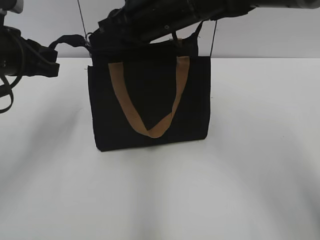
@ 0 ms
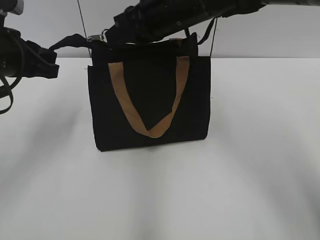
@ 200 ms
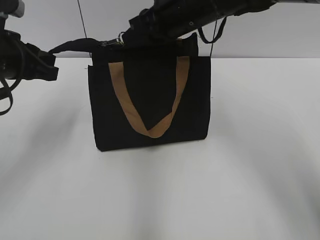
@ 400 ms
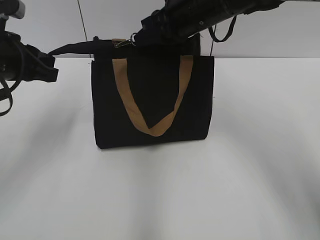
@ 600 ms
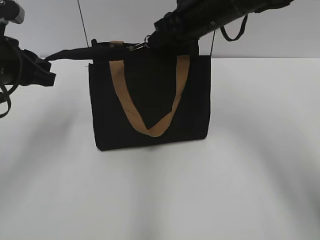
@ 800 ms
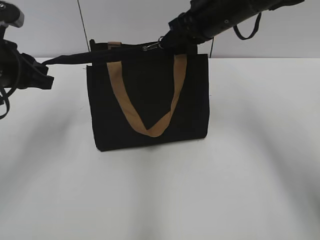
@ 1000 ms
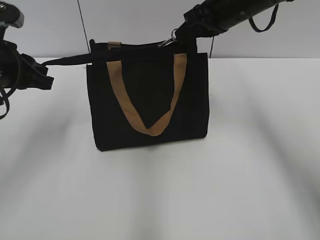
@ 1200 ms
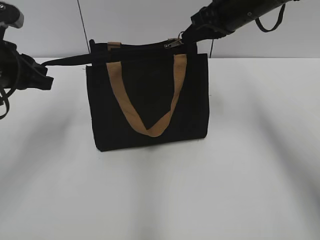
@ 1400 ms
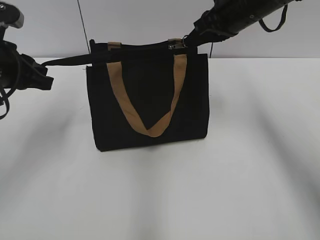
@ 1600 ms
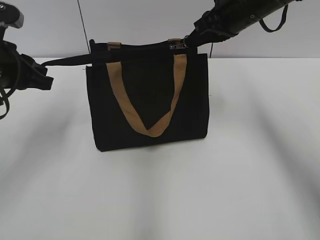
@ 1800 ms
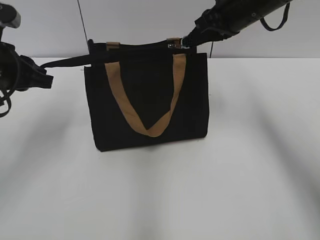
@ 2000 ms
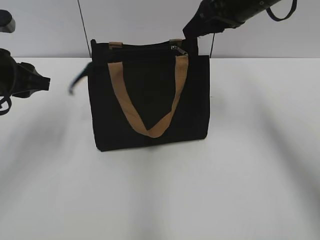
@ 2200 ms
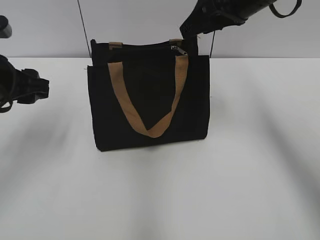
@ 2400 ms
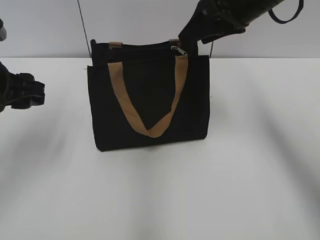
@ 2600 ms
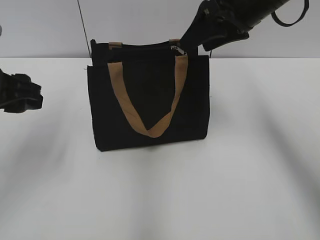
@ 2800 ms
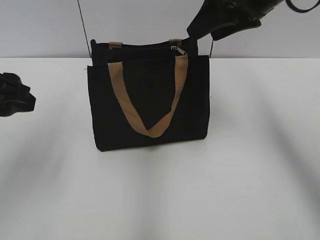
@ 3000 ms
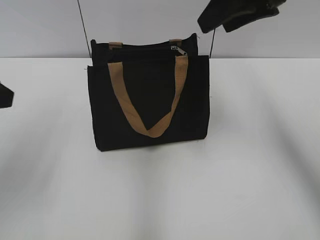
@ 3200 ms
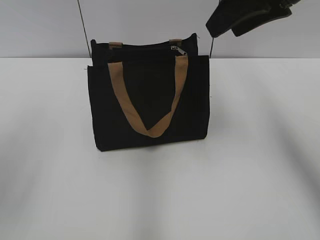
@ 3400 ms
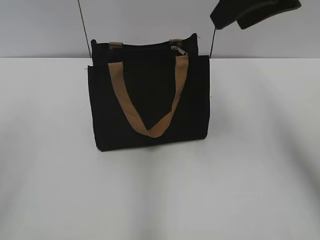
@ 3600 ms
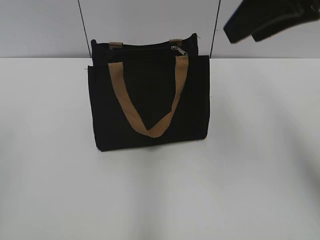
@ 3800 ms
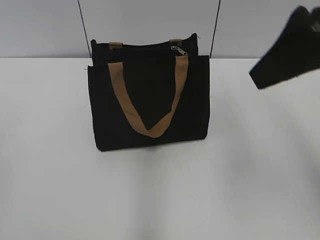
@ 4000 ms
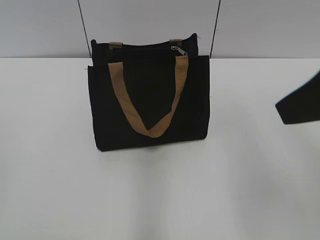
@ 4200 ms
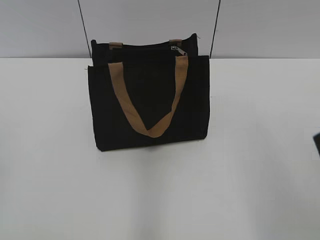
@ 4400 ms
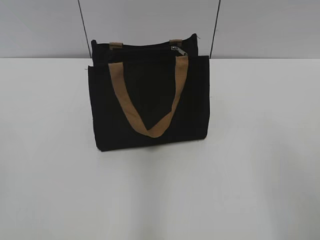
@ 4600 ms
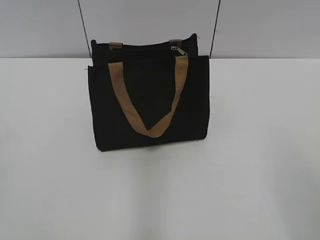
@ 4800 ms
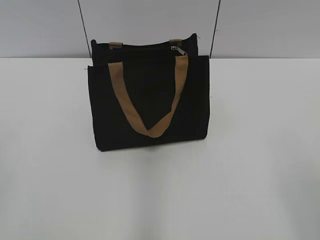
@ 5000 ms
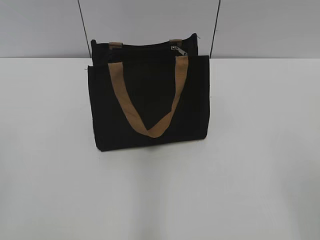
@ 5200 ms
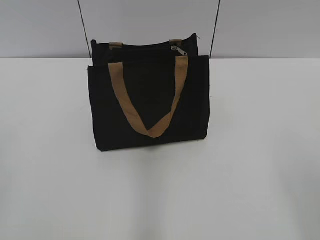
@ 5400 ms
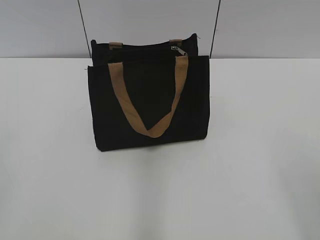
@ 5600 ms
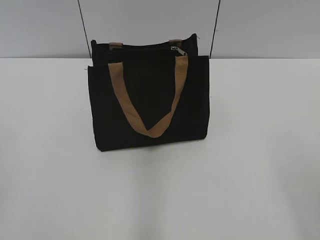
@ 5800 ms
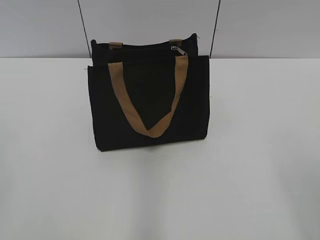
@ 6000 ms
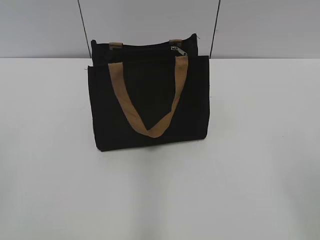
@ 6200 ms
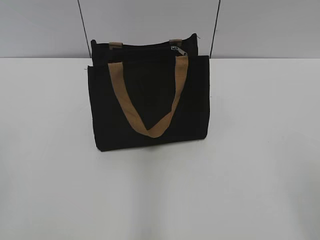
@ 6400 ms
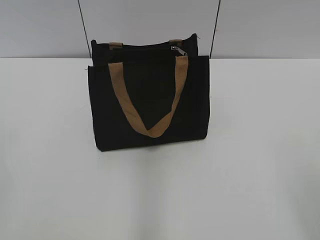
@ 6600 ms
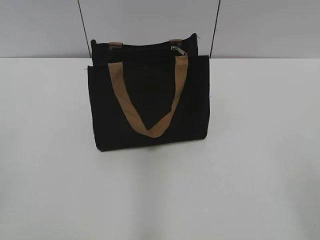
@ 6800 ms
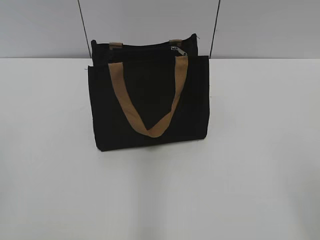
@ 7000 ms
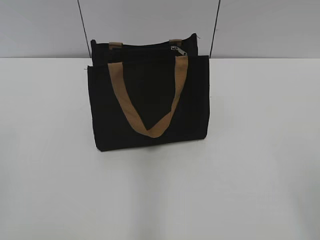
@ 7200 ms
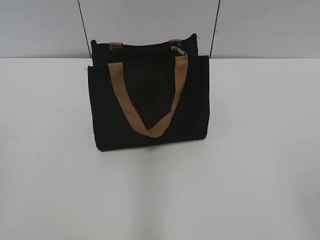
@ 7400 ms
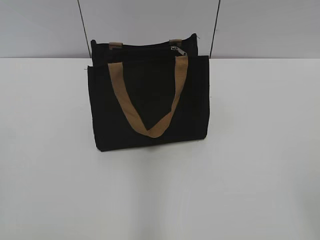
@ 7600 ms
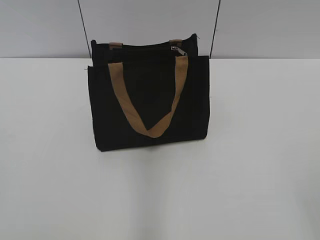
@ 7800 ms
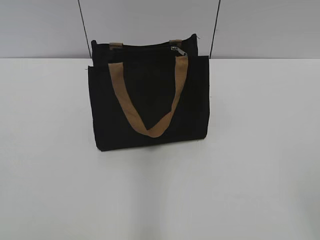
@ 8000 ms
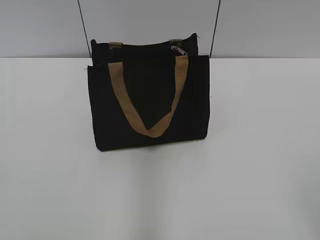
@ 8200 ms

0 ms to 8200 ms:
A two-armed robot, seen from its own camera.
Step, 0 ms to 2000 ms: Zip up the bag with your right hand.
0 ms to 1600 ms: The right gripper goes roughly 15 cm to the right.
1600 ms to 3200 ms: The right gripper travels upward and backward by approximately 10 cm, and opens its fingers. The left gripper travels backward and upward by about 10 cm, and opens its fingers.
3200 ms to 5000 ms: The right gripper goes about 30 cm backward. The left gripper is displaced backward and to the left by roughly 20 cm.

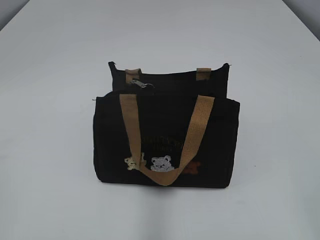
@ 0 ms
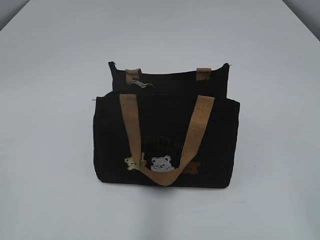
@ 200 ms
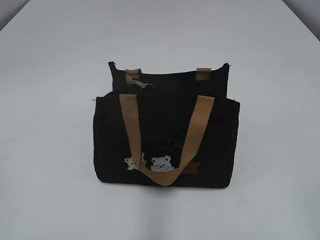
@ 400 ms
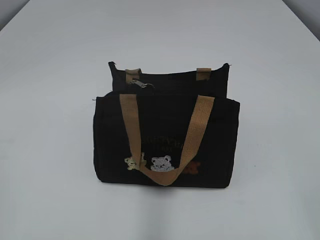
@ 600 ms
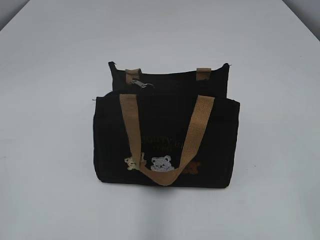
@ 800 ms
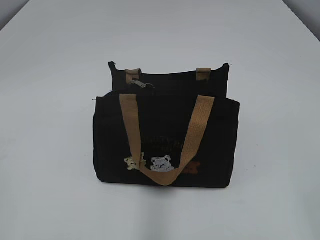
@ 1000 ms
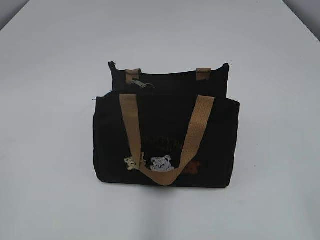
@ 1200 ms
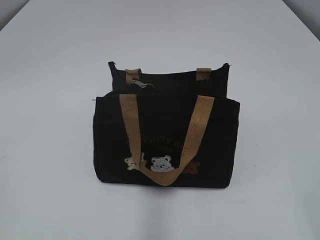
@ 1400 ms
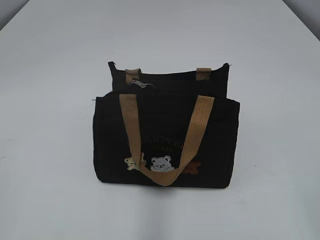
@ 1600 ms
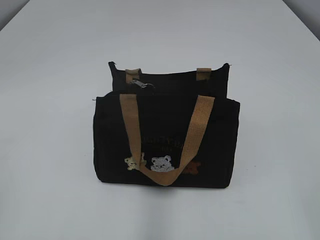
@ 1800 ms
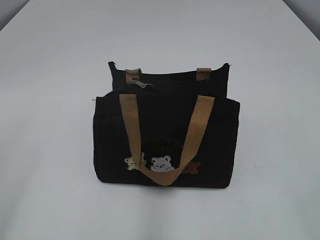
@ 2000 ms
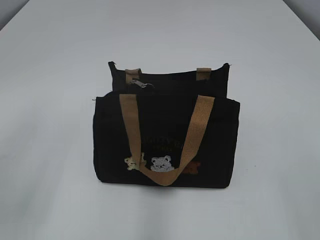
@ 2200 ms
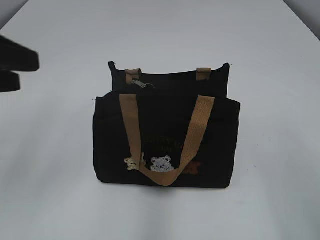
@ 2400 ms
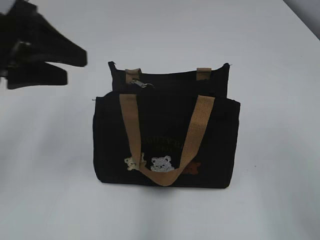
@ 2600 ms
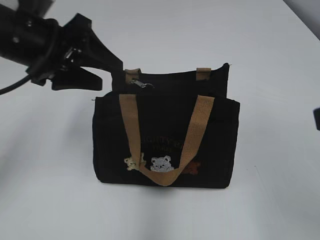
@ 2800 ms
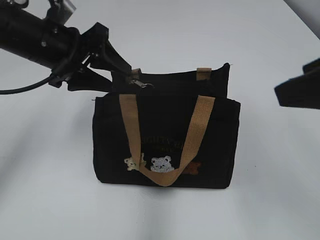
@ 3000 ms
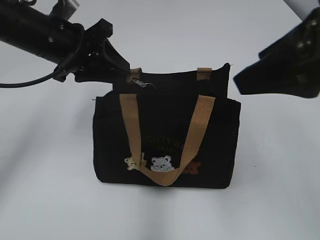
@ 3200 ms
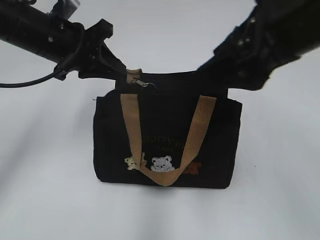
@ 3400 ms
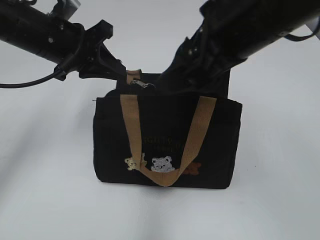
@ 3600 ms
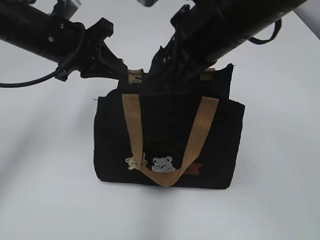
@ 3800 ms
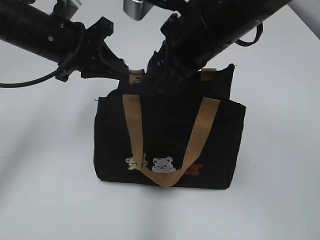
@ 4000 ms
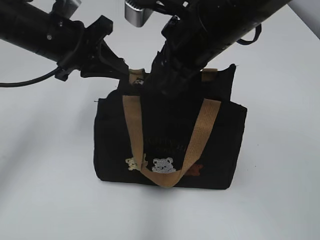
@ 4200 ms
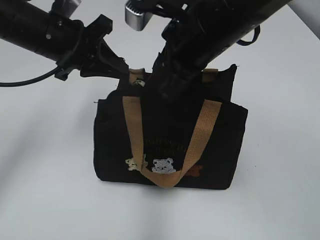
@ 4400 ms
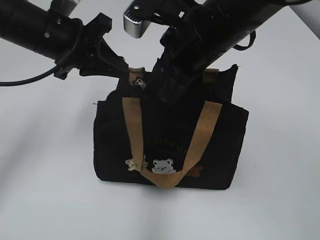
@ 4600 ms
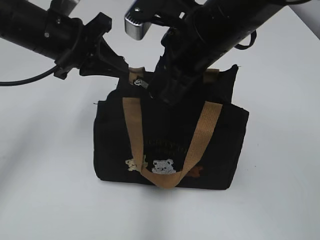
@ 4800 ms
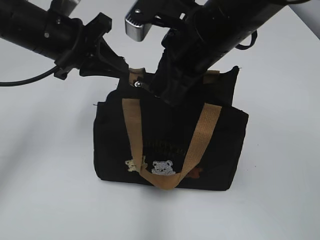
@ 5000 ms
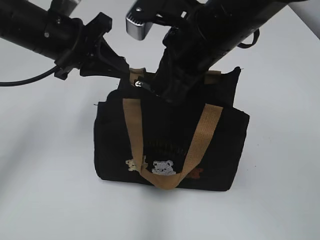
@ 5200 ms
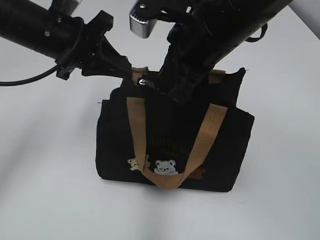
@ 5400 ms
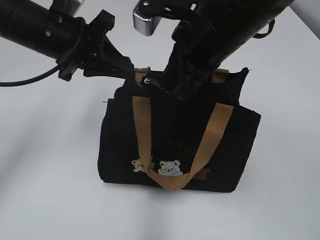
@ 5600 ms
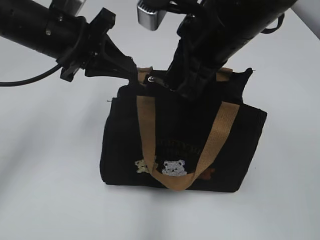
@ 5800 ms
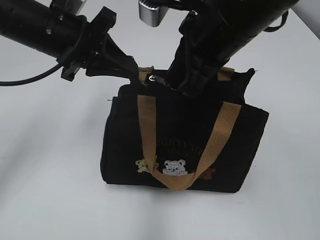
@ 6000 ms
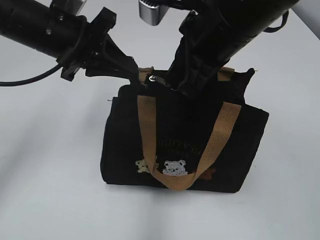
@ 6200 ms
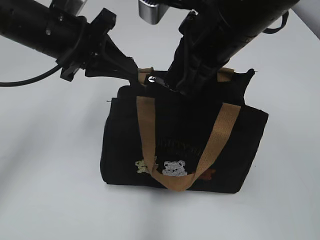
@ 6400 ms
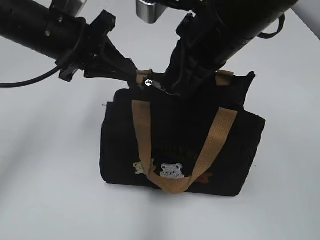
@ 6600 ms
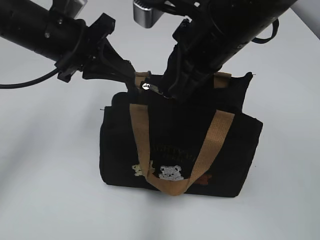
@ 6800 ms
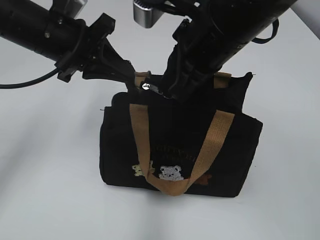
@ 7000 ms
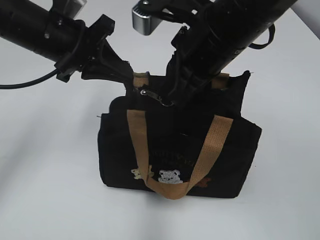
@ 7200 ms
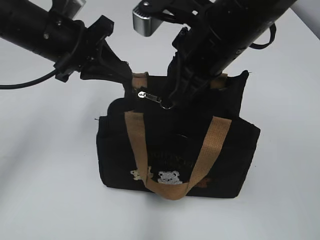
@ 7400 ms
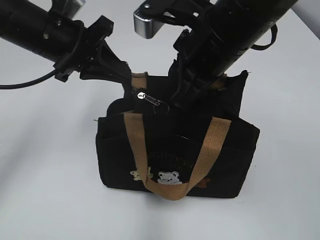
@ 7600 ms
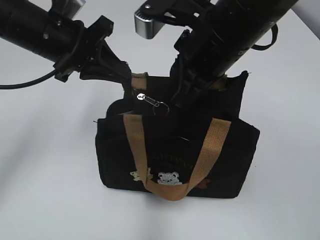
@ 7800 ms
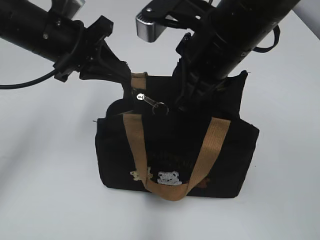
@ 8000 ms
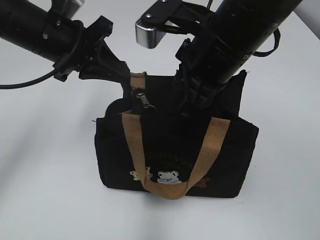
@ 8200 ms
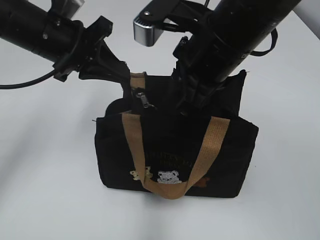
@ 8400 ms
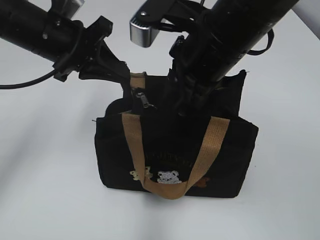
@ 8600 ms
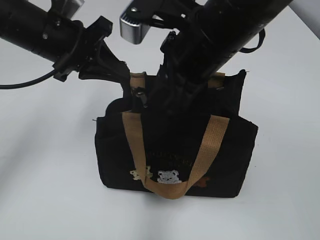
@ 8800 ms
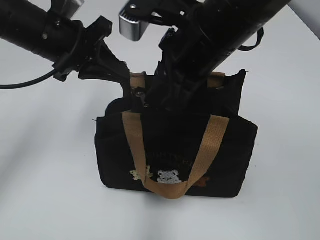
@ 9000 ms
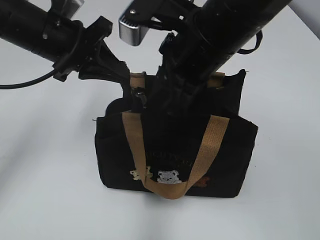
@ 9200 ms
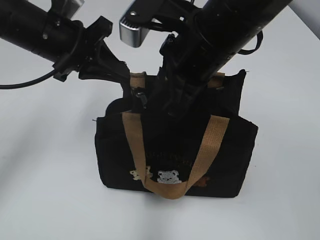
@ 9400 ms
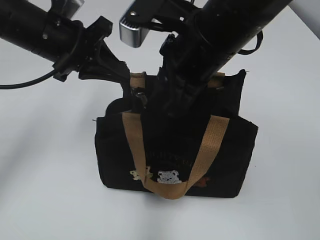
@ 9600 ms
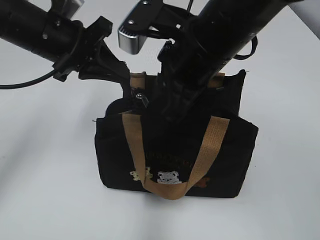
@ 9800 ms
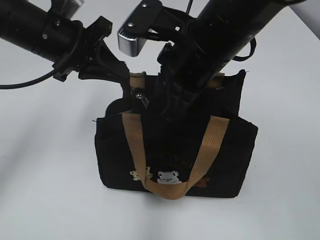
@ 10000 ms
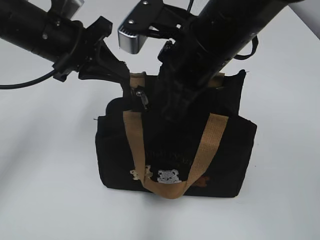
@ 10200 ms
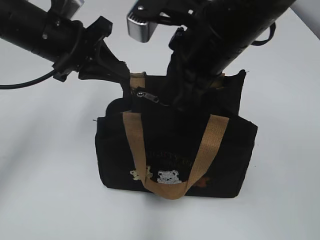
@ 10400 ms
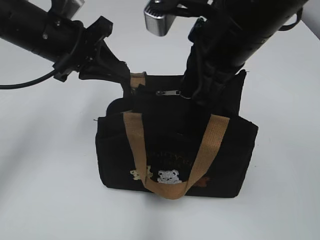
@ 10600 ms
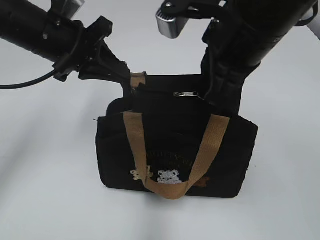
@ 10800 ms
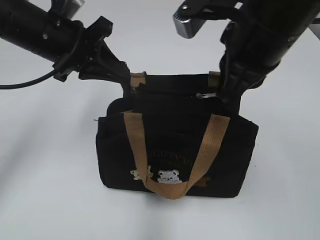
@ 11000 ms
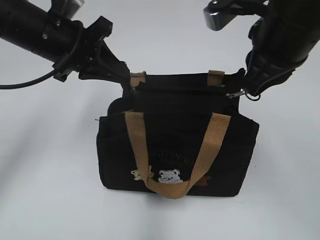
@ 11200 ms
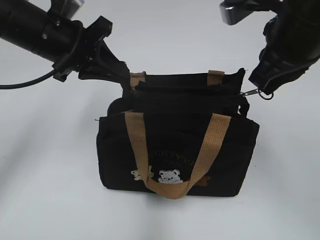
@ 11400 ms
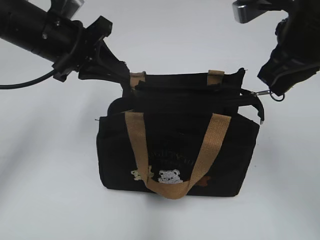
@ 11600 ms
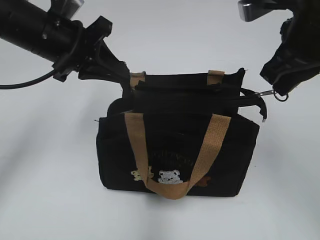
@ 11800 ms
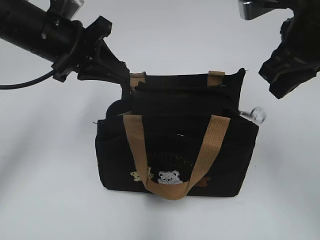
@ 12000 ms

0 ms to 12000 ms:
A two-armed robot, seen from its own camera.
Step, 0 ms to 11800 ms: Pull open the zipper with your right hand.
1600 ms to 3000 ms: The left gripper shifts about 35 cm forward and to the right, and opens its fingers; the right gripper goes about 15 cm forward.
3000 ms to 4400 ms: The left gripper closes its fingers. The right gripper shifts about 20 cm to the left and forward, and closes up.
4400 ms to 6000 ms: The right gripper closes its fingers.
6000 ms to 9000 ms: The grippers move only a little.
9000 ms to 10400 ms: The right gripper closes up.
10400 ms to 12000 ms: The right gripper moves to the right, some 10 cm.

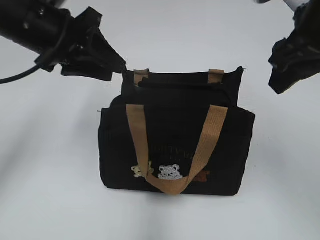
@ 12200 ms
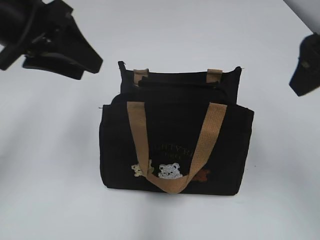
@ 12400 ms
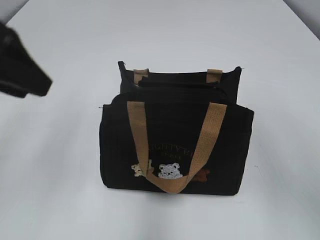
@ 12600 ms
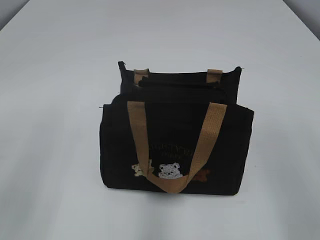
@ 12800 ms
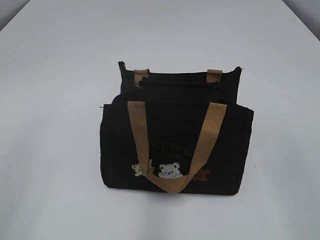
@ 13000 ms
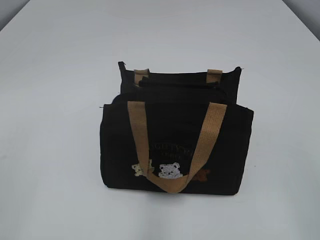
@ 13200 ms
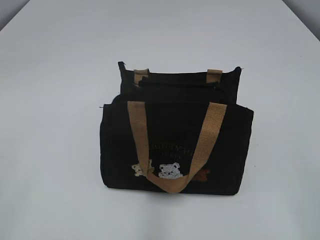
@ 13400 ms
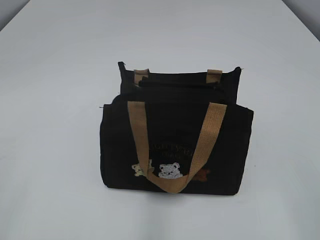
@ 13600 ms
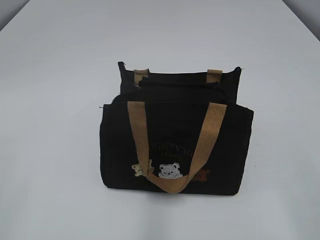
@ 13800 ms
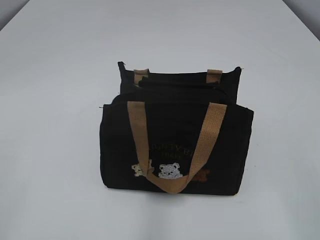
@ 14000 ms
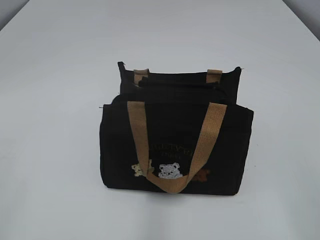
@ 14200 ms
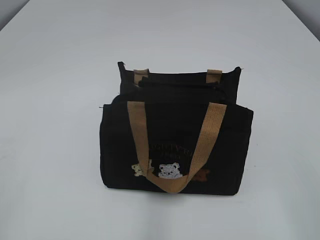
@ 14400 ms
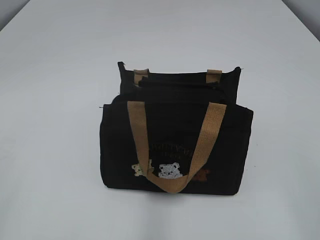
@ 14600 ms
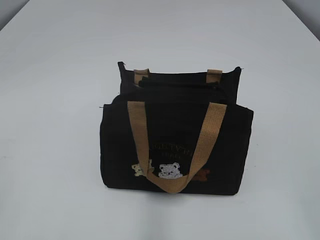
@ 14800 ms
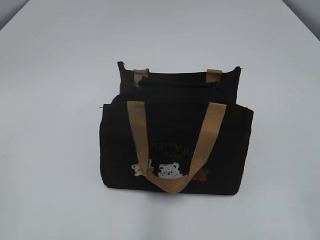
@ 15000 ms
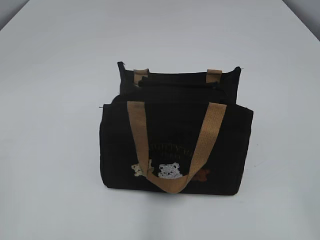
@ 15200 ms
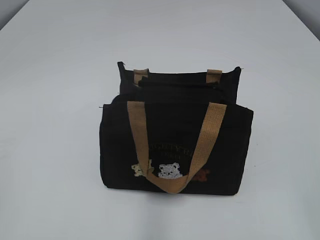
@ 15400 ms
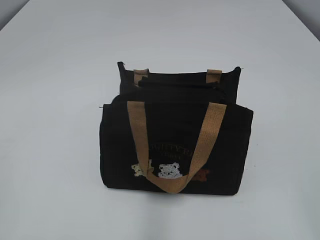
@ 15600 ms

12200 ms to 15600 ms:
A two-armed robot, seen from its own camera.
12200 ms to 13800 ms: The left gripper travels backward and to the left by about 35 cm. The right gripper is displaced backward by approximately 25 cm.
